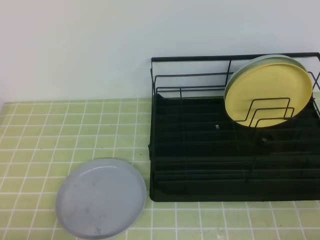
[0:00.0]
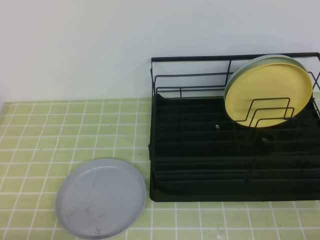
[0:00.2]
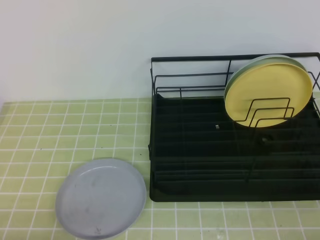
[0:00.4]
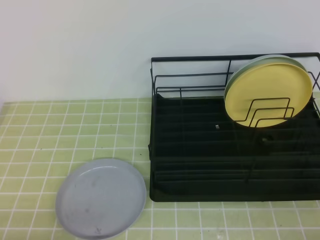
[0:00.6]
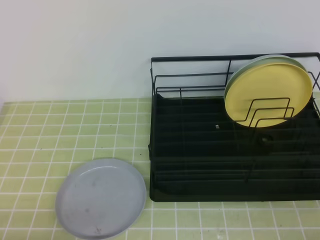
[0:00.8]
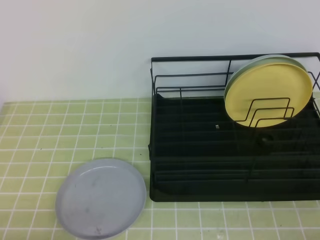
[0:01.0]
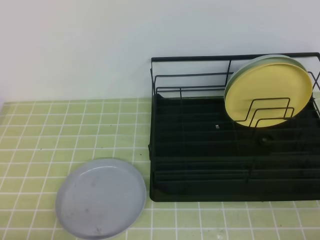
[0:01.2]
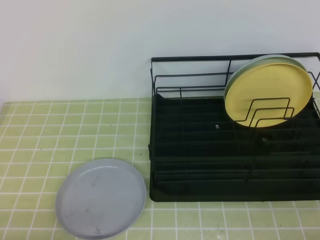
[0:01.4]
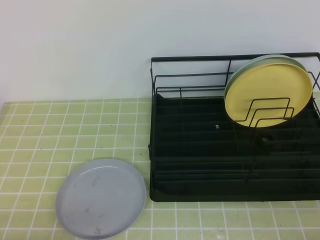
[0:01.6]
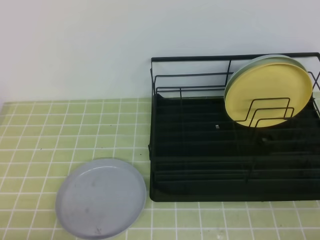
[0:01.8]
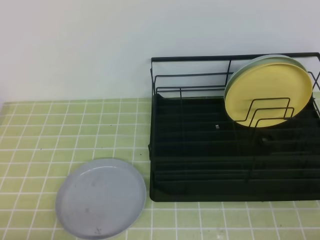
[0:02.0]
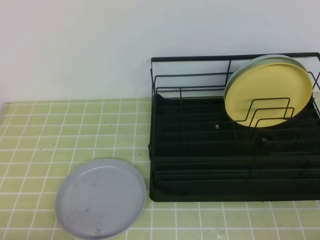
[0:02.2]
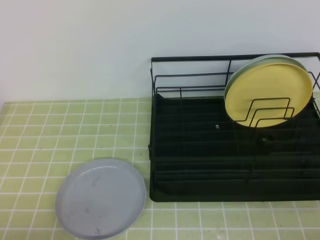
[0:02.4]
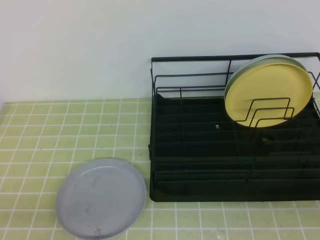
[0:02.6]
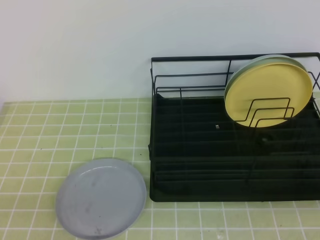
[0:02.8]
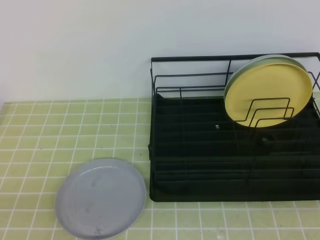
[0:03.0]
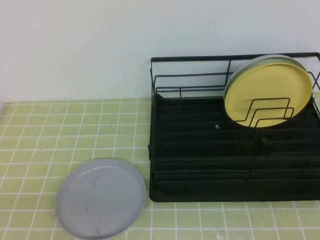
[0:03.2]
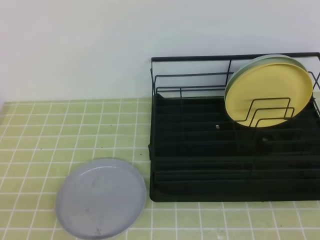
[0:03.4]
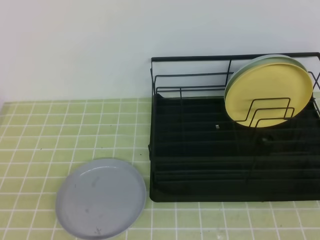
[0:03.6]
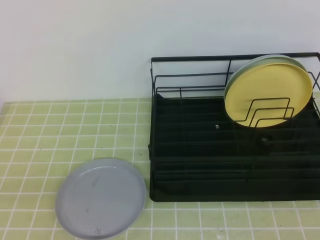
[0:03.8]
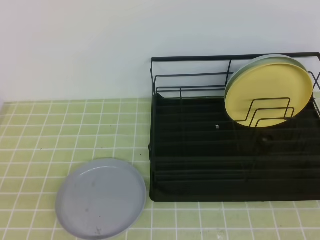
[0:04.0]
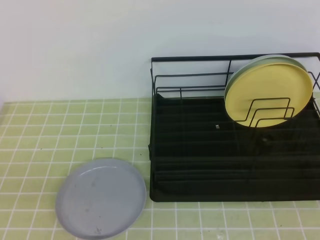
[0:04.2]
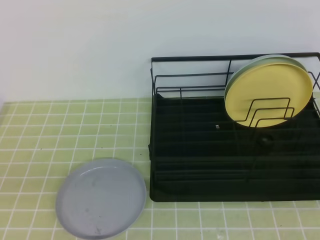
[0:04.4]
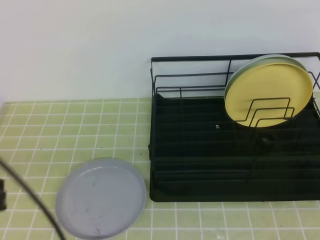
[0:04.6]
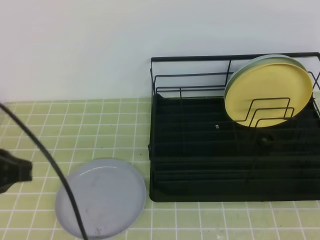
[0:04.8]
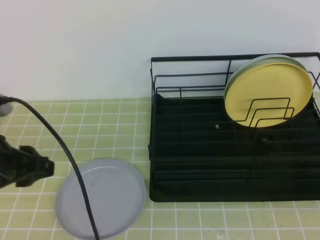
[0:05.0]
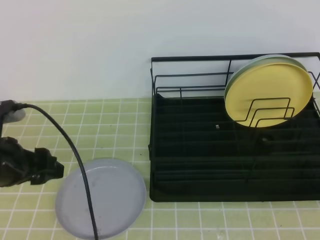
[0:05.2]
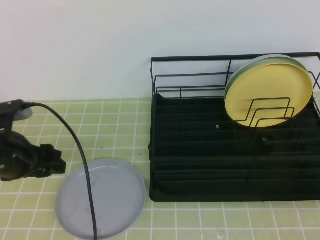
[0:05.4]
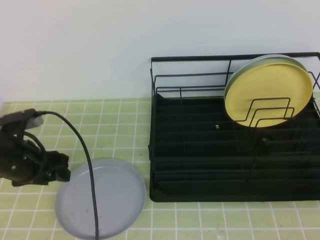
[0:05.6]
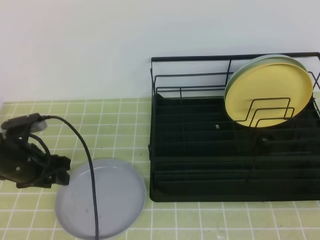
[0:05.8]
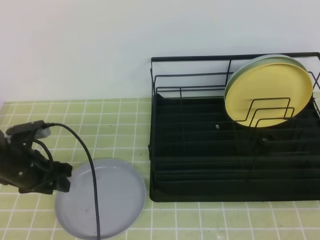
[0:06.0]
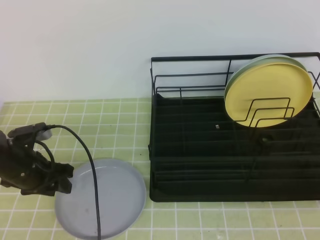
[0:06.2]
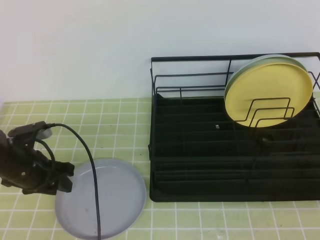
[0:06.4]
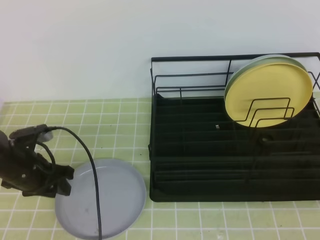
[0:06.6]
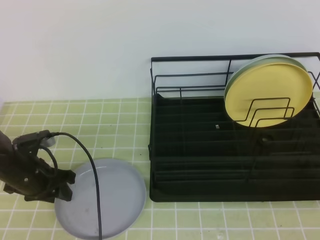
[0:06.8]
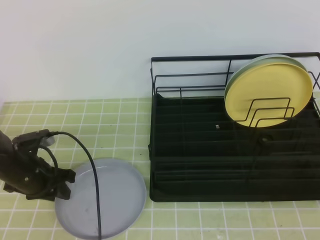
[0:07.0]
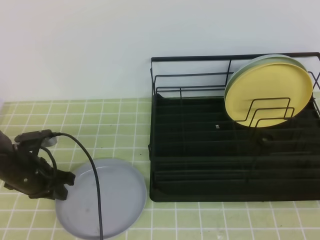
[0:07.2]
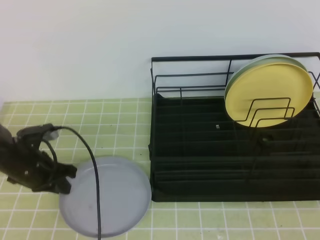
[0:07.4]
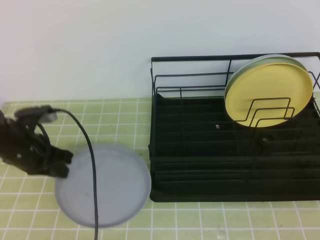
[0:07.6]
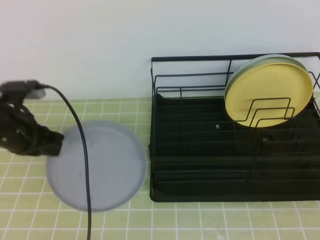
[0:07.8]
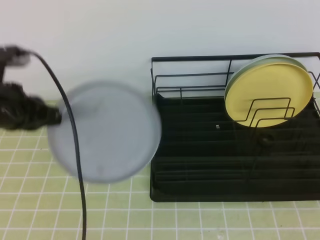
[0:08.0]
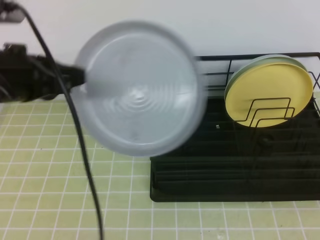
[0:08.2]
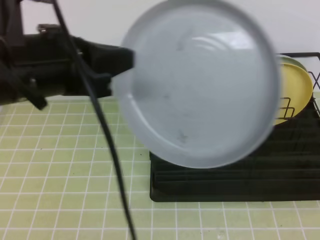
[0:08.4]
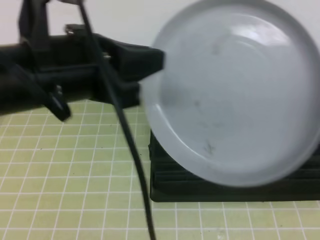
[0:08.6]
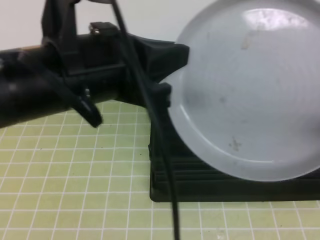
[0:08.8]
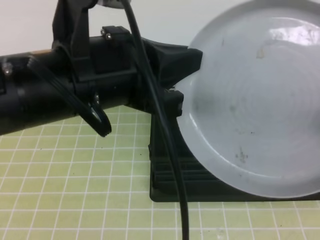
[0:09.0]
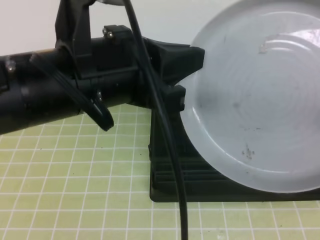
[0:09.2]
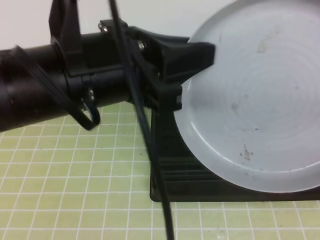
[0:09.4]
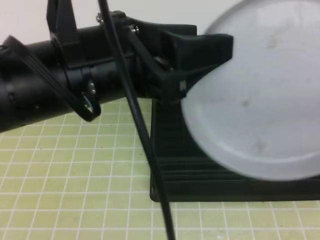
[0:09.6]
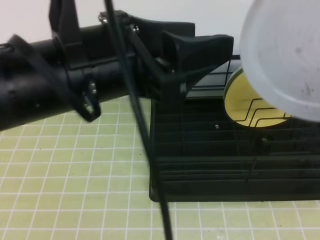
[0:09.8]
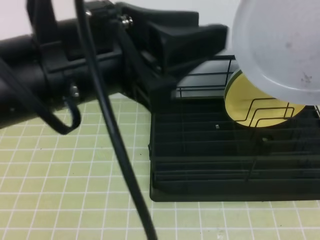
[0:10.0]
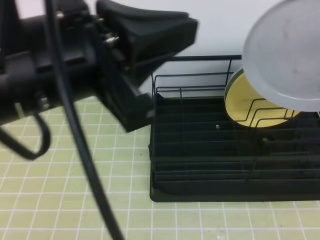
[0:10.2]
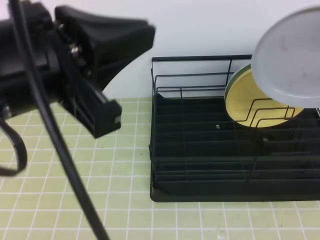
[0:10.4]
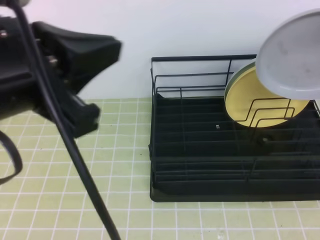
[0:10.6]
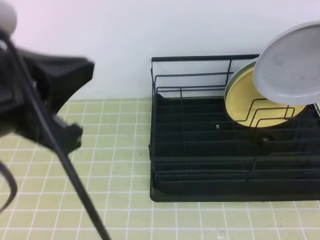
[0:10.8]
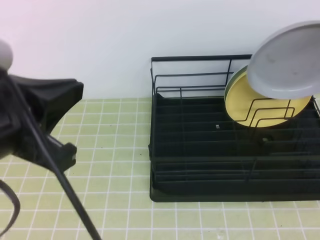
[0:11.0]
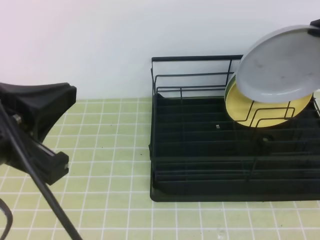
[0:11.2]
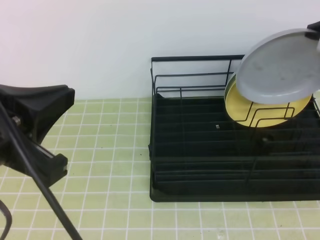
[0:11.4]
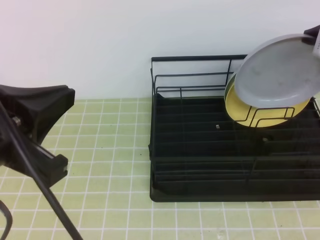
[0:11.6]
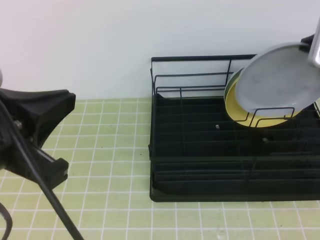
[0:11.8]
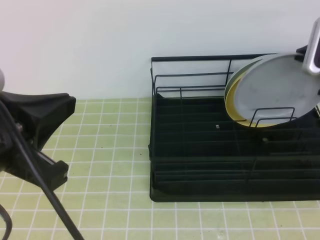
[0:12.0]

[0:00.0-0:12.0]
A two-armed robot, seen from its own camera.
Step, 0:00.0 to 0:06.0: Left grab the gray plate.
Step, 0:06.2 to 0:07.8: Right receive the plate.
Step, 0:08.0 to 0:10.8: Right place it at the front of the shelf.
0:00.0 to 0:01.6: The two grippers keep their place.
0:04.4 to 0:06.0: The left gripper goes roughly 30 cm forward and downward, and opens.
0:06.0 to 0:07.6: The left gripper closes its fingers.
0:07.6 to 0:09.0: The left gripper heads upward, to the right and backward, covering approximately 30 cm, while the right gripper moves upward and to the left, approximately 10 cm, and opens up.
0:09.0 to 0:10.4: The right gripper moves forward, about 15 cm, and closes up. The left gripper changes place by about 5 cm, and opens and closes again.
0:10.4 to 0:12.0: The right gripper moves forward and downward, roughly 15 cm, while the left gripper is displaced downward and to the left by about 5 cm.

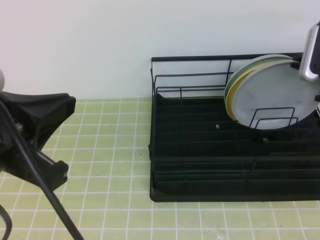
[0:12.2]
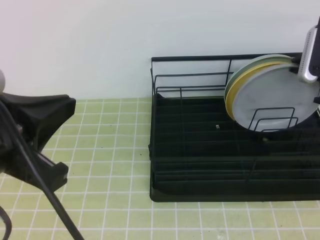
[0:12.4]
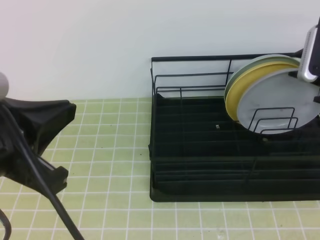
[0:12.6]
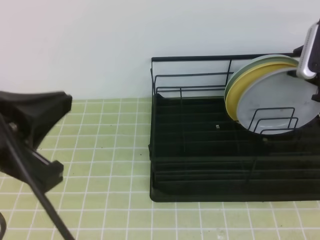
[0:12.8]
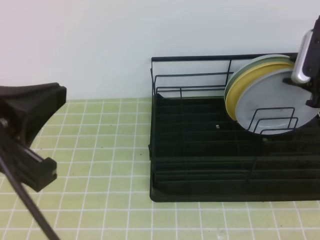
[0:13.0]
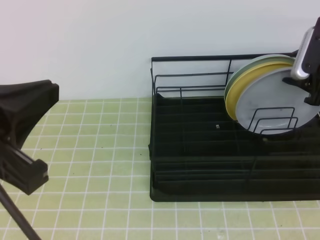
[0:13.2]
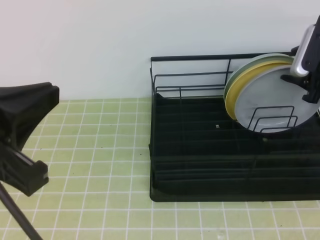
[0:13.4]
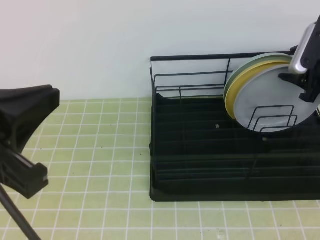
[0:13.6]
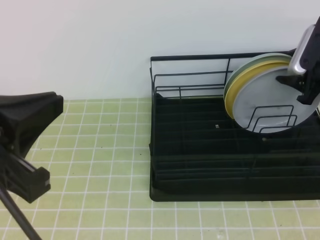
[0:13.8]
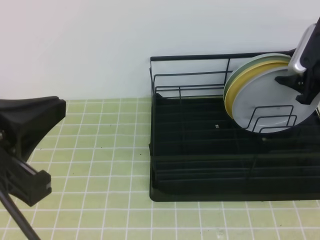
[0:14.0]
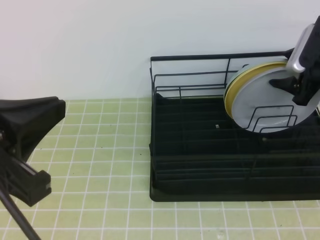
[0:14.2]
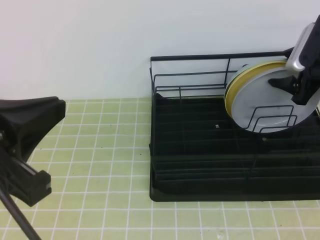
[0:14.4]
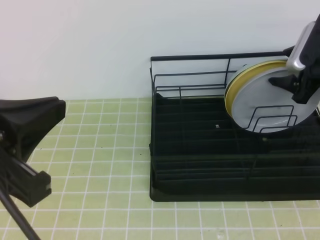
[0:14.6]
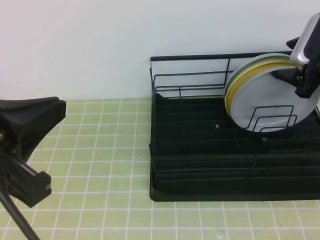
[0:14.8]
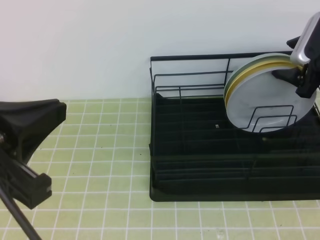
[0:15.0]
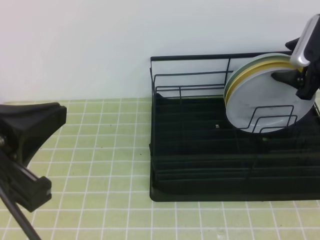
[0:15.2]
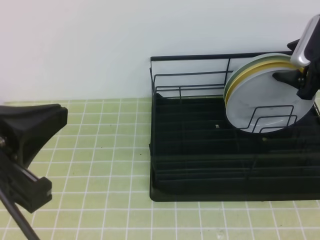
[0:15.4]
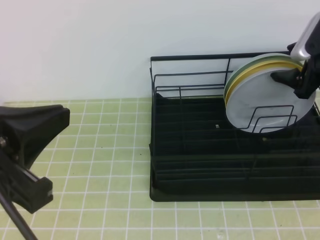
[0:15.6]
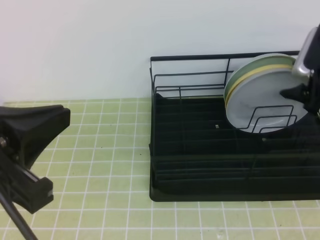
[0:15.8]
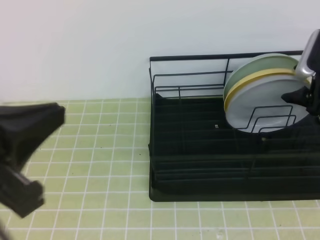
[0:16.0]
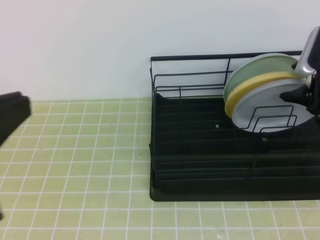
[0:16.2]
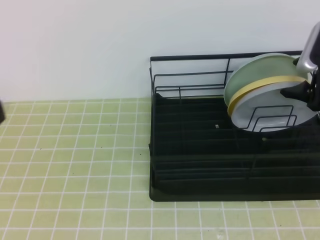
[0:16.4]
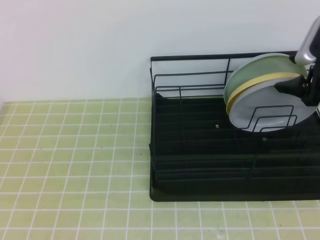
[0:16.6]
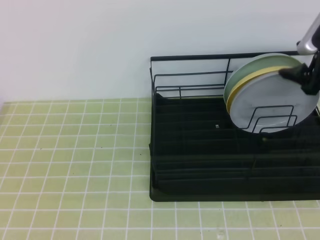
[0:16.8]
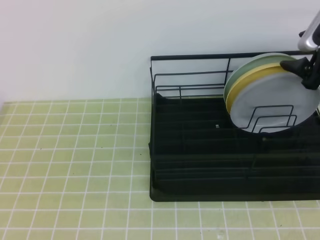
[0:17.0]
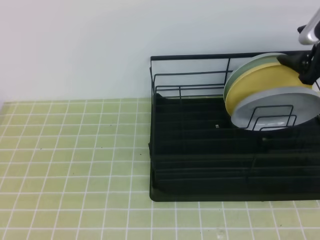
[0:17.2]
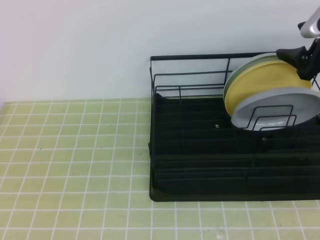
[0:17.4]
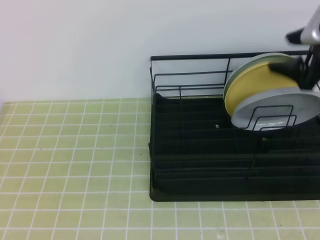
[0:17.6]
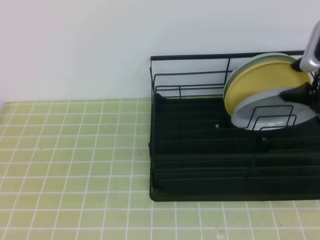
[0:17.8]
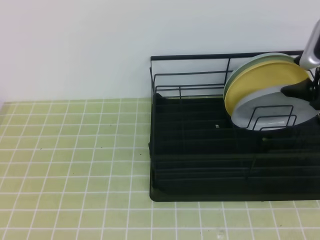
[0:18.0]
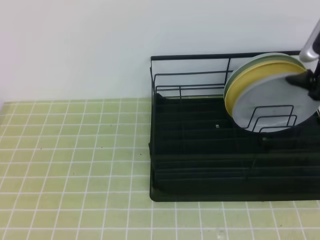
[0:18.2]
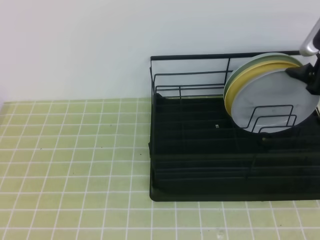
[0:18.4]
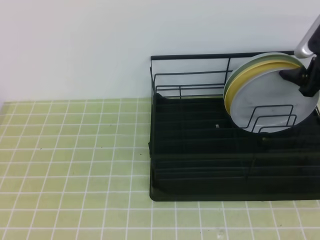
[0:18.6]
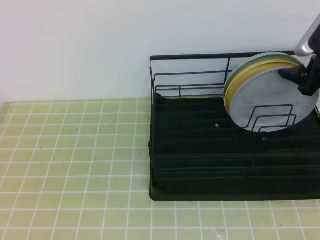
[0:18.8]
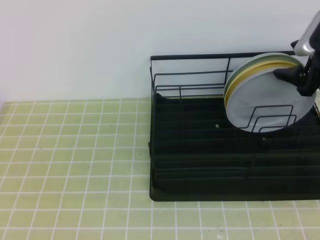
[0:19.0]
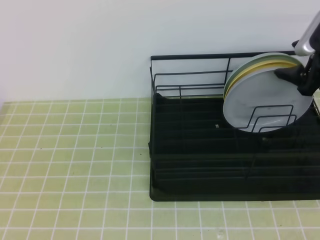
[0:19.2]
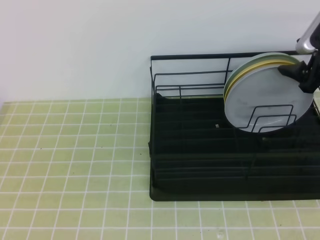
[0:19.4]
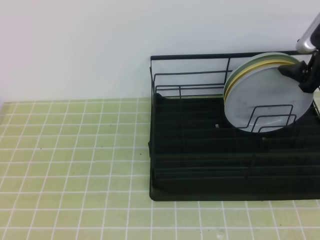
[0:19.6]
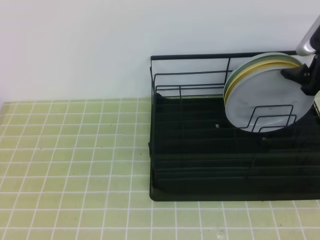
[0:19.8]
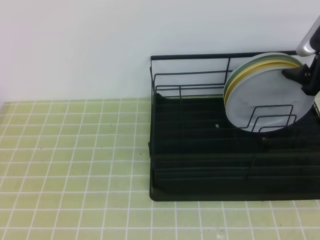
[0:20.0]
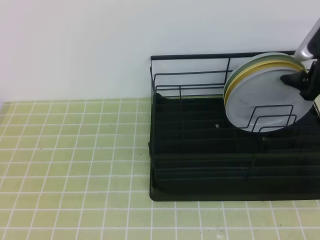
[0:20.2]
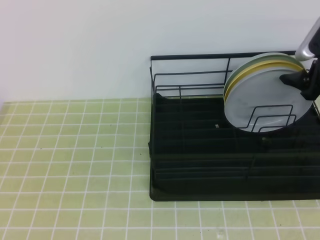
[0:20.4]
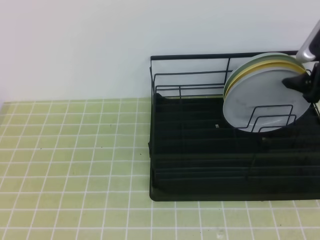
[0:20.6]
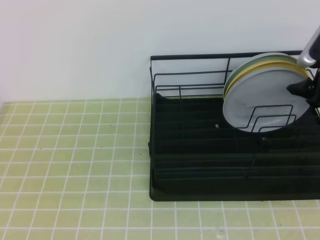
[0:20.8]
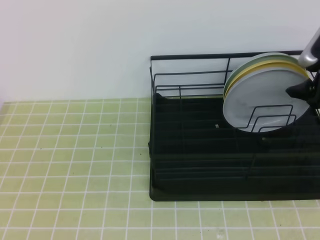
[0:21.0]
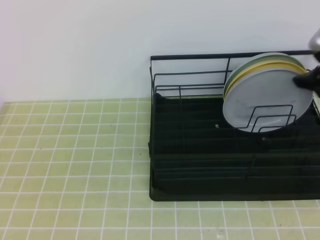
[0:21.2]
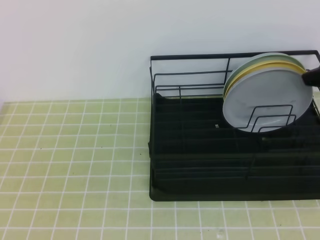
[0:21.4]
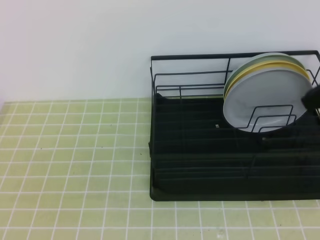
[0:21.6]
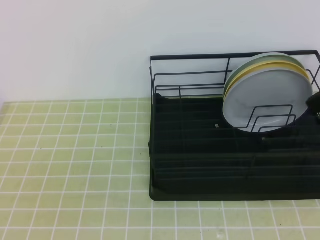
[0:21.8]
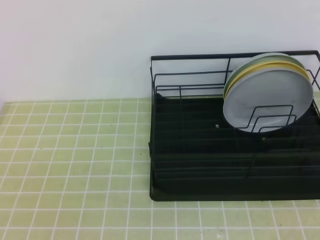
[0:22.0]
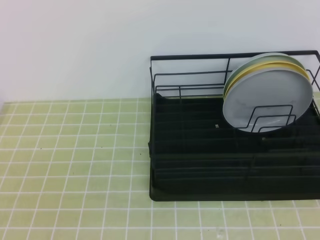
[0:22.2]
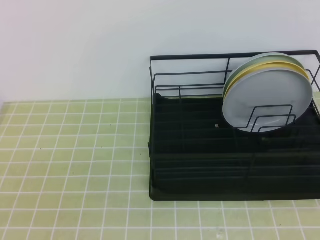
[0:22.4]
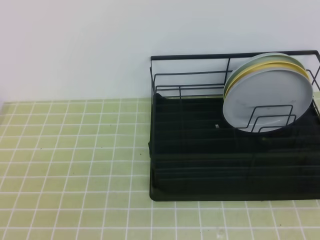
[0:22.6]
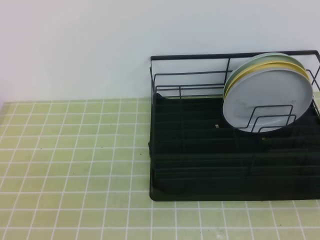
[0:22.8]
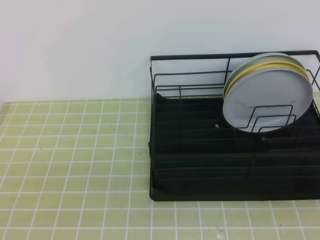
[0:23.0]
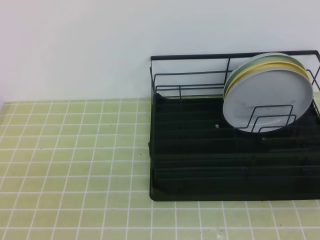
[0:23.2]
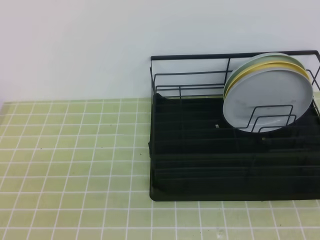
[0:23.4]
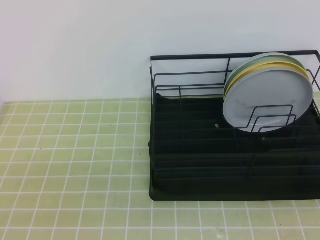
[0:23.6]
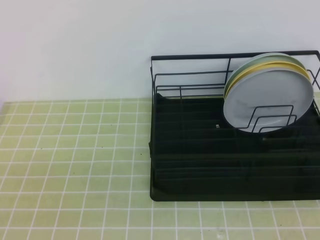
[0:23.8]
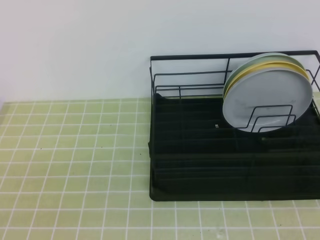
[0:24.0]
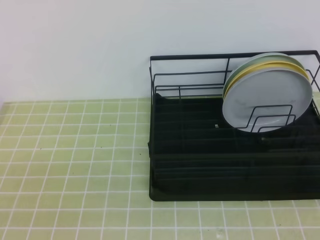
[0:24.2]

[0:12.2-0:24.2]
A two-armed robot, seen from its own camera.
0:12.2 to 0:13.8: The right gripper opens its fingers.
0:13.8 to 0:15.2: The grippers stay close to where they were, moving slightly.
0:15.2 to 0:16.6: The left gripper moves backward, some 5 cm.
0:16.6 to 0:21.2: The grippers stay close to where they were, moving slightly.
0:21.2 to 0:22.6: The right gripper goes approximately 30 cm backward, and closes.
